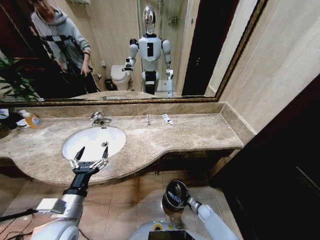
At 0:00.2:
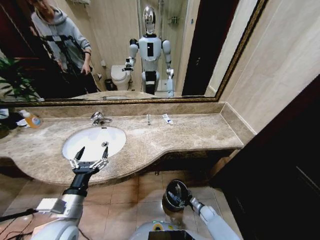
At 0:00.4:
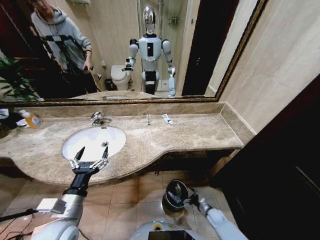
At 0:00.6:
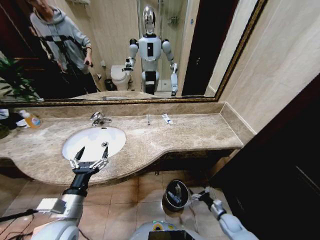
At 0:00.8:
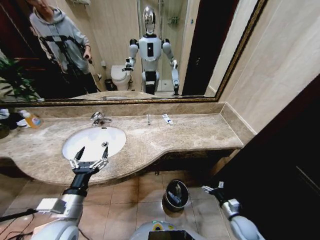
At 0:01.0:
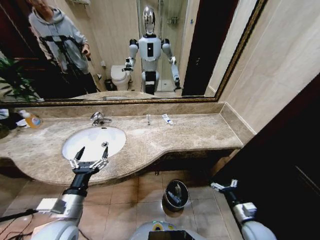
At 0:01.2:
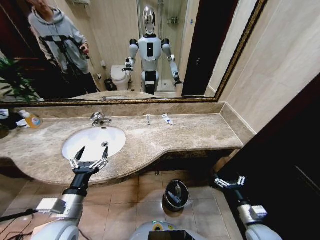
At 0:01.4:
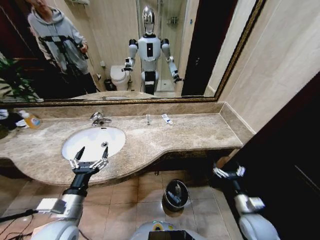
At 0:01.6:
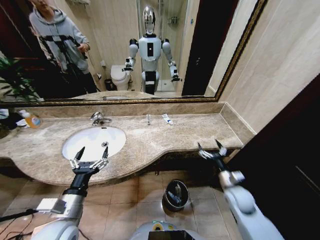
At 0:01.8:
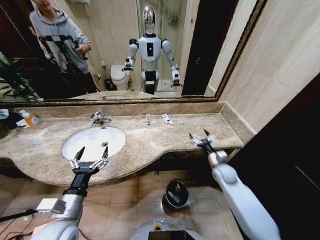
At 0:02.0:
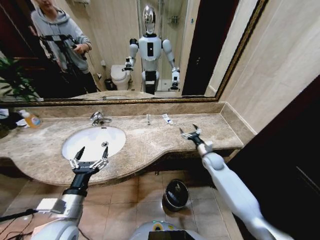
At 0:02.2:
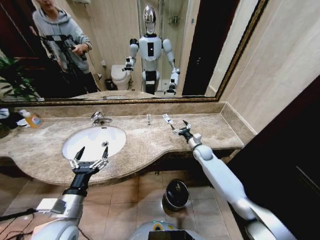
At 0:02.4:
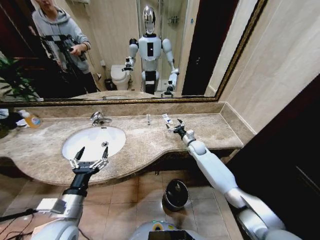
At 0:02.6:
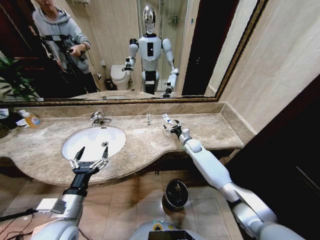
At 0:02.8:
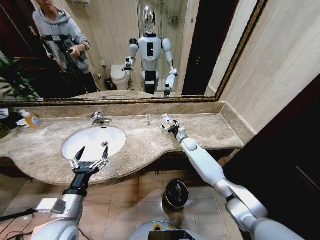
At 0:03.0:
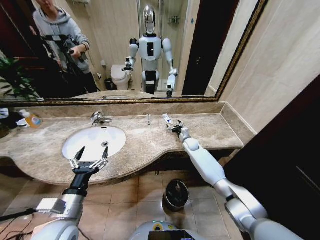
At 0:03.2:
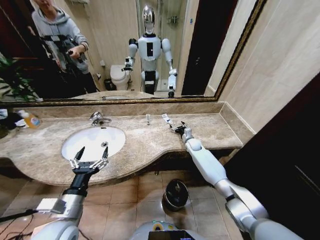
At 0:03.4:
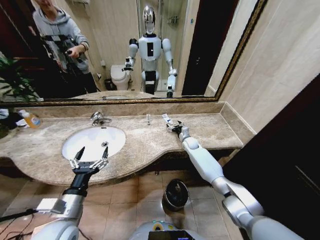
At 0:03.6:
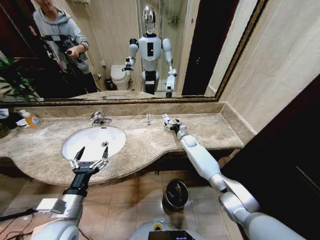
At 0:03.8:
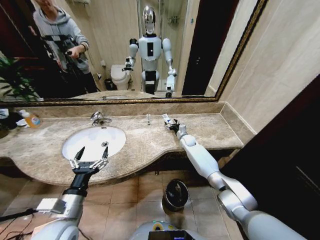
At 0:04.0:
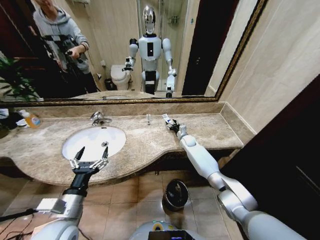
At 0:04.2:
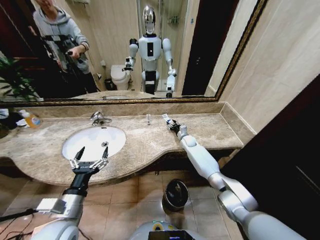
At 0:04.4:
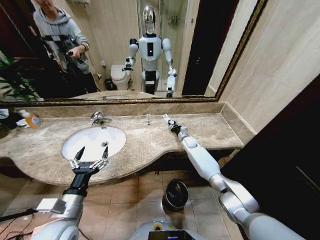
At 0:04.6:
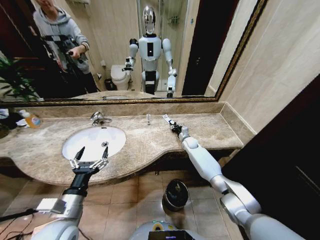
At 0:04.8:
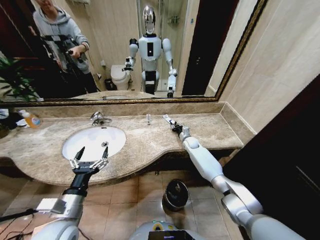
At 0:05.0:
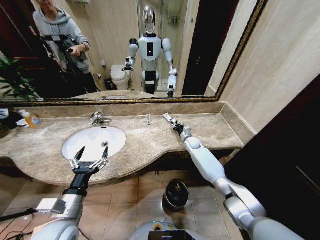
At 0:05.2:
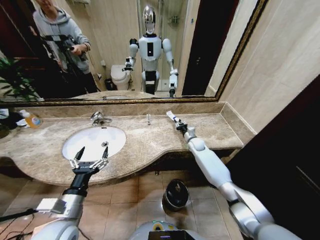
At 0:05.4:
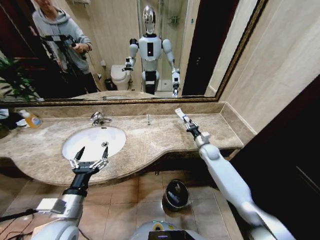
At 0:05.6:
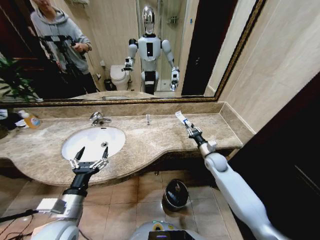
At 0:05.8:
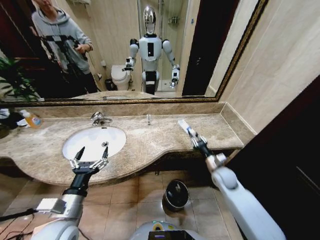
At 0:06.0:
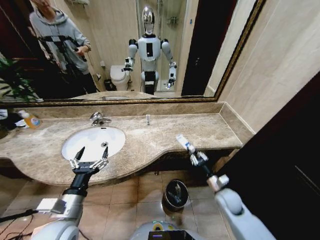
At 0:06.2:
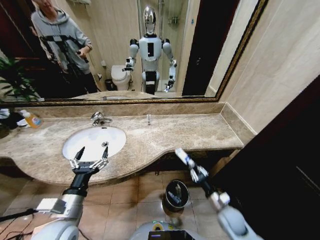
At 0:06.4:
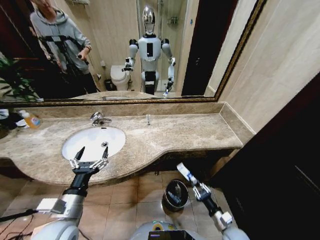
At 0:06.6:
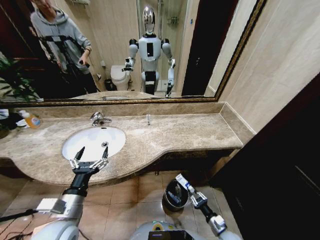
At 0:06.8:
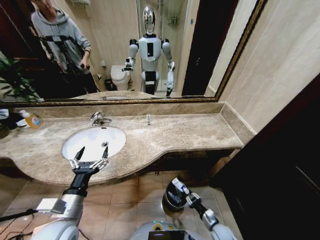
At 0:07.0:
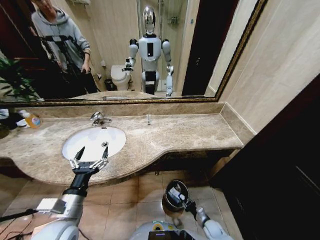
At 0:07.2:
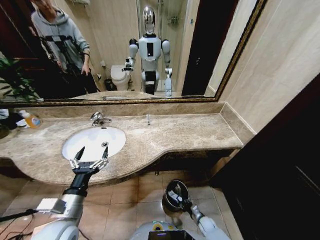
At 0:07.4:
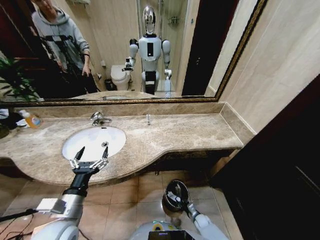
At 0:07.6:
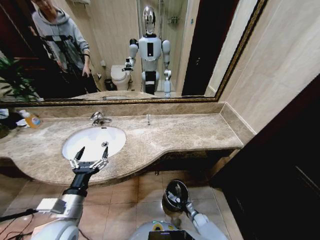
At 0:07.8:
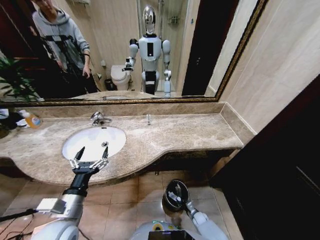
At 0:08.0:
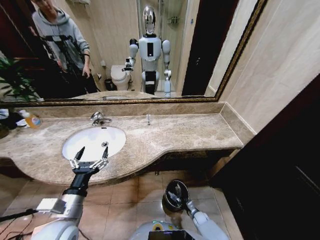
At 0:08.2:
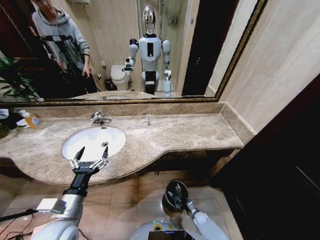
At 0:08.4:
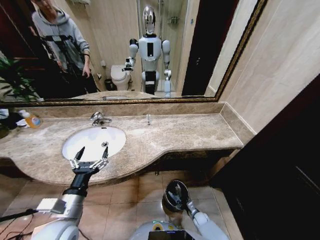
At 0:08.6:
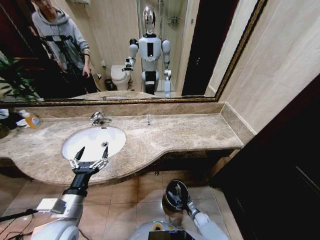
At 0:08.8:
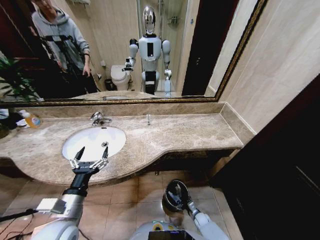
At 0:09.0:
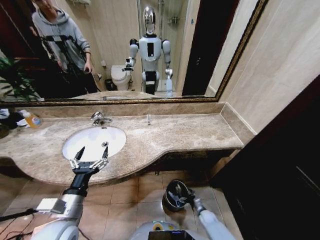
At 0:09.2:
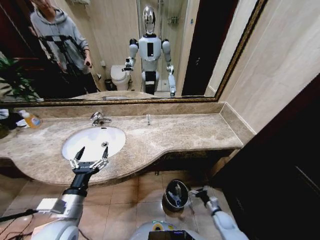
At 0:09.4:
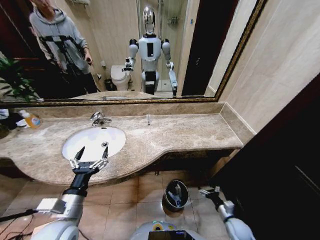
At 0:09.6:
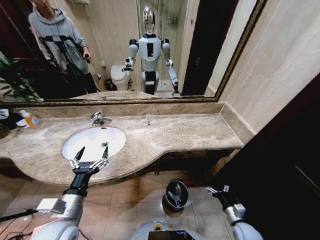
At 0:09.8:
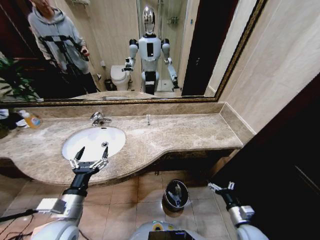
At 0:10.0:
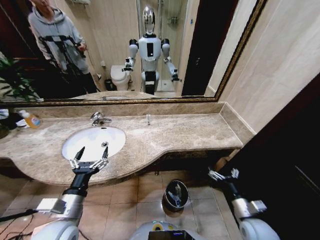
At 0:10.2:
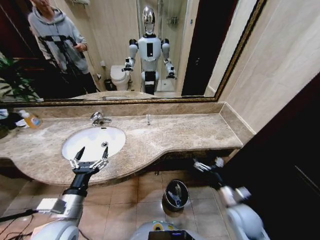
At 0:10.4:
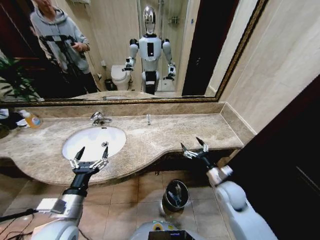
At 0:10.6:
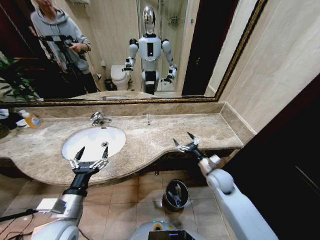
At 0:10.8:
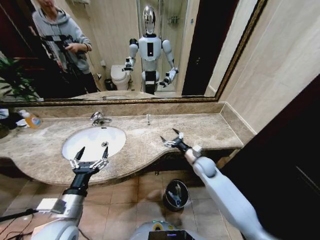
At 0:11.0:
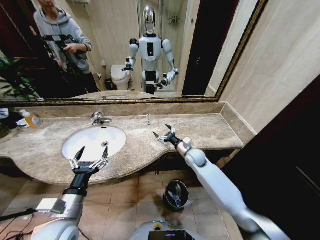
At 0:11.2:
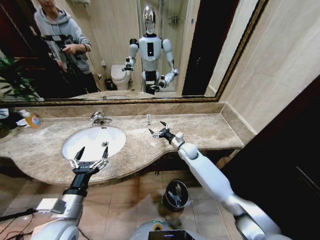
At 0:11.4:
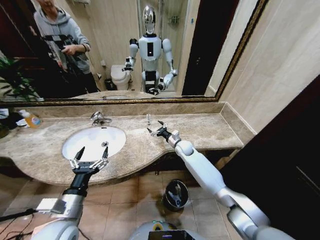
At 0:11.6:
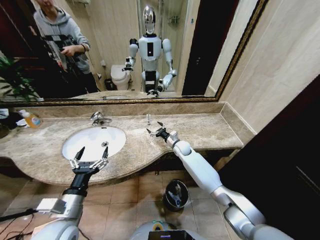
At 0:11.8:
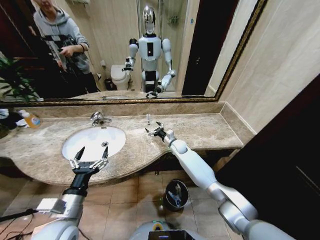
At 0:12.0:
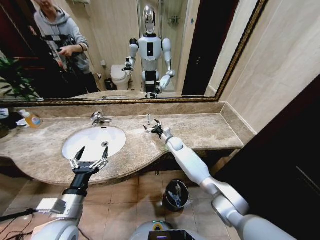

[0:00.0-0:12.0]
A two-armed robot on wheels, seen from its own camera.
Task of the whole recording: Pick up the trash from the sink and place it in the trash bin.
0:00.0 to 0:01.6: The right gripper moves upward, approximately 30 cm.
0:01.6 to 0:03.0: The right gripper heads forward, covering about 30 cm.
0:03.0 to 0:04.4: The right gripper closes.
0:04.4 to 0:06.0: The right gripper moves backward, approximately 30 cm.
0:06.0 to 0:07.6: The right gripper moves downward, about 30 cm.
0:07.6 to 0:09.0: The right gripper changes place by roughly 5 cm, and opens up.
0:09.0 to 0:10.4: The right gripper goes about 35 cm upward.
0:10.4 to 0:12.0: The right gripper is displaced forward and to the left by roughly 35 cm.

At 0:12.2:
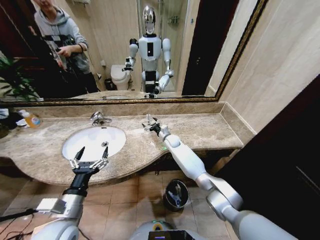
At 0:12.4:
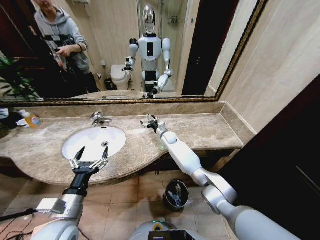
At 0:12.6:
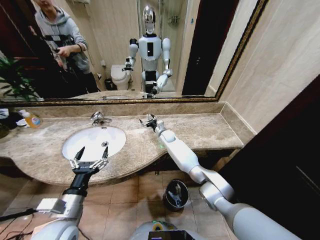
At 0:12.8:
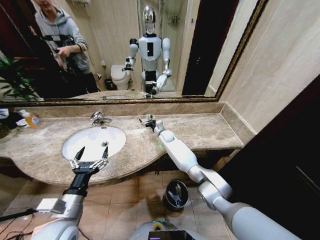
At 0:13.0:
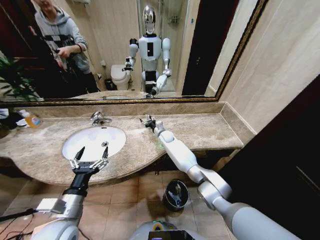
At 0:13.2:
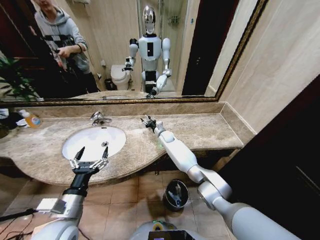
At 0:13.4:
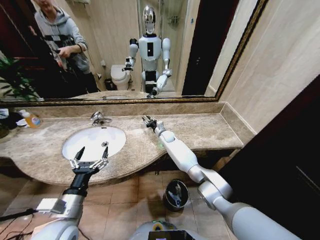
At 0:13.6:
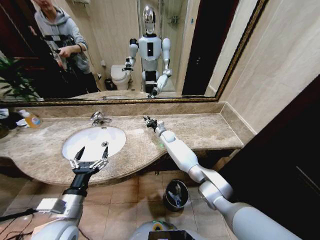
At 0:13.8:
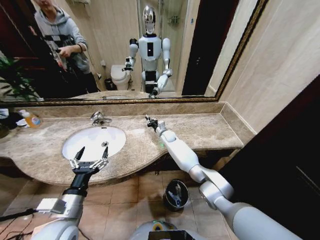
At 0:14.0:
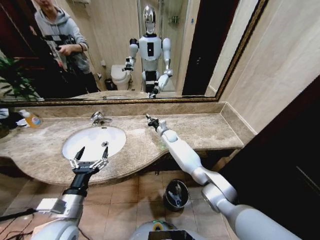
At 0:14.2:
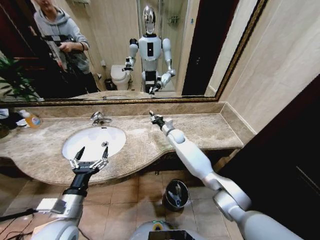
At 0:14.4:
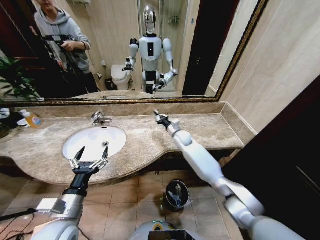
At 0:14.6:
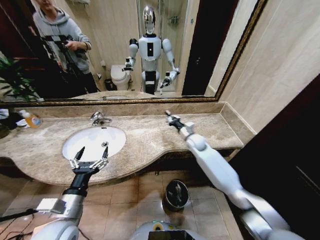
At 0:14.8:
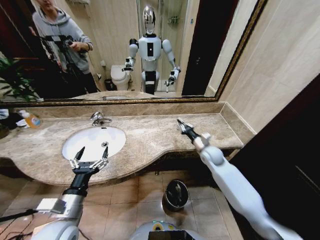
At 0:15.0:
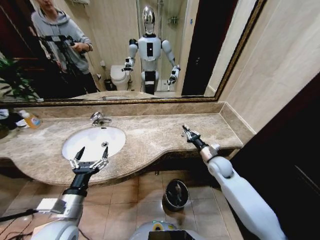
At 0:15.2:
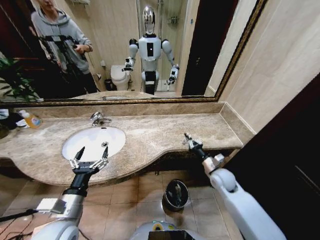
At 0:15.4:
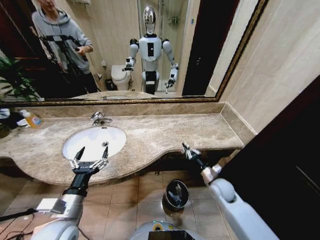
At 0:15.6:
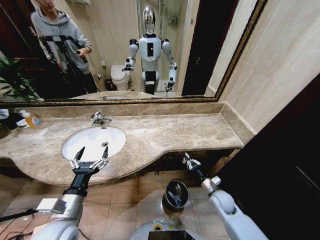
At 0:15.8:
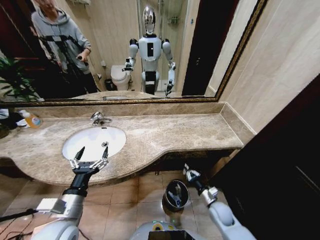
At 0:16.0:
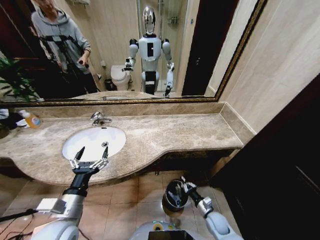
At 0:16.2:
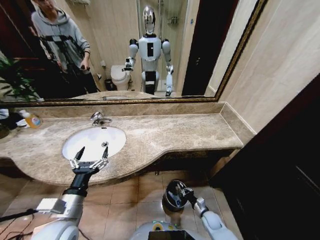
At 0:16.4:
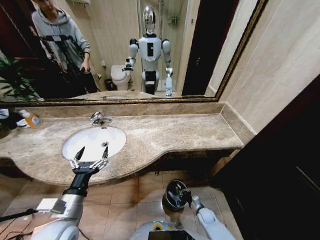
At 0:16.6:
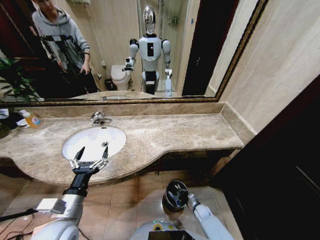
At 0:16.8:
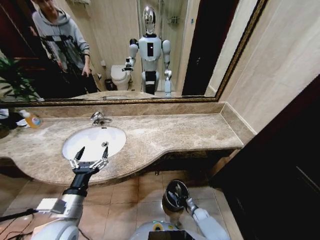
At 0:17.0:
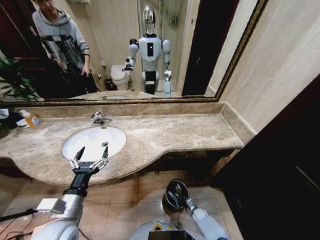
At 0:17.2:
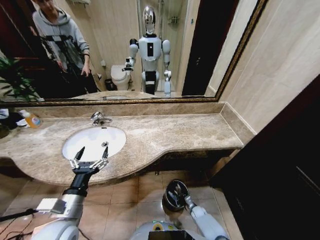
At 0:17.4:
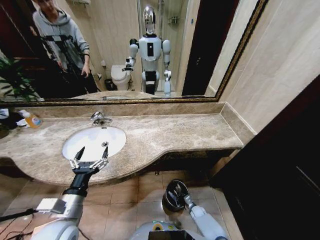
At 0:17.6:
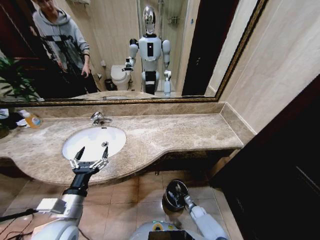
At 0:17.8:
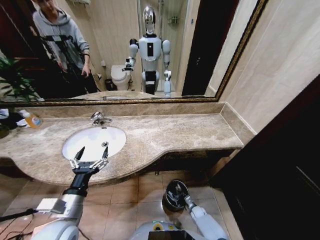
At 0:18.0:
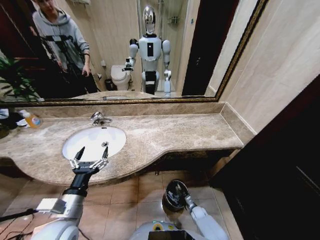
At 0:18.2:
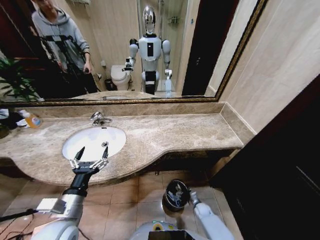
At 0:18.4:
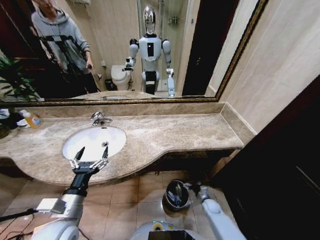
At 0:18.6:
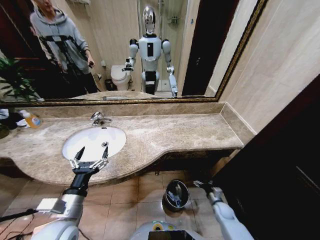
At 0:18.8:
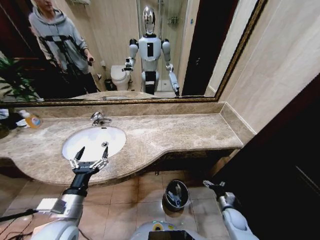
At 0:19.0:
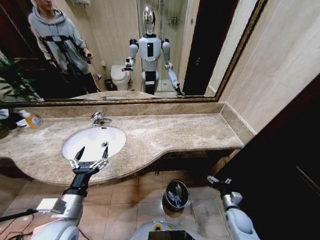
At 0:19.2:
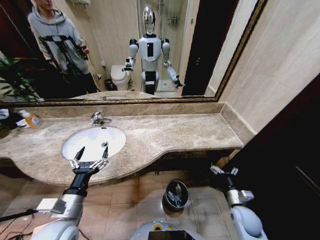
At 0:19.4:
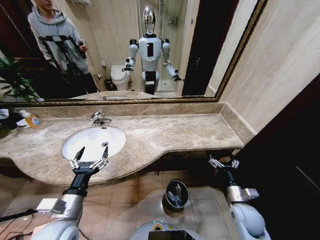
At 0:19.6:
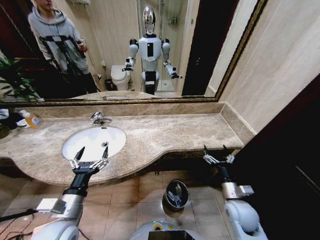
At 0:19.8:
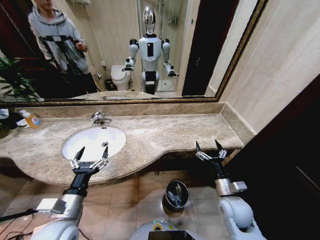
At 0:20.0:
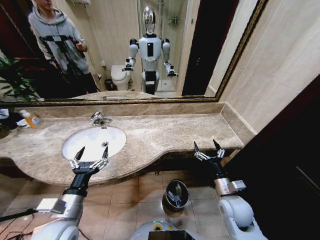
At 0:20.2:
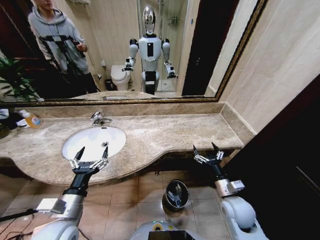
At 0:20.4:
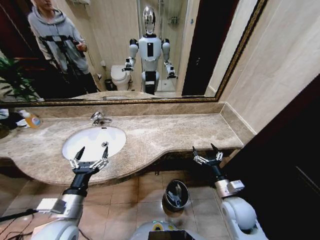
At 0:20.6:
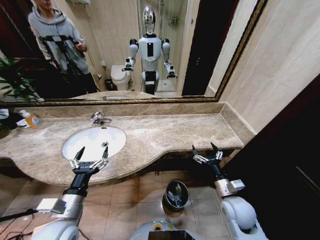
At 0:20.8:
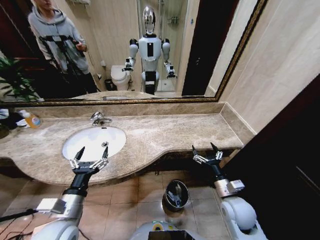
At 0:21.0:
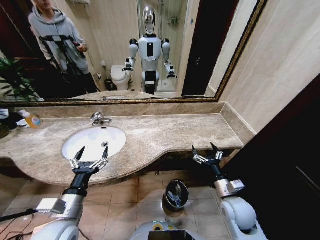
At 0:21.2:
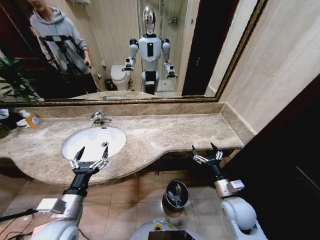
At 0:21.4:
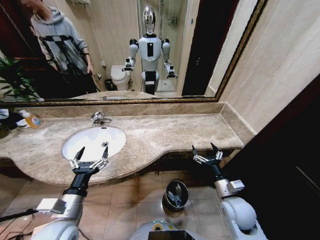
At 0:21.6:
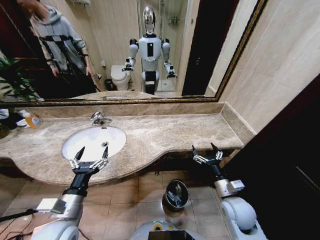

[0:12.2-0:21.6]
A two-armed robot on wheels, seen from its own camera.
Task of the whole recording: Pick up the trash from the sink and place it in the trash bin.
0:12.2 to 0:13.8: The right gripper closes its fingers.
0:13.8 to 0:15.4: The right gripper moves backward and to the right, approximately 35 cm.
0:15.4 to 0:17.0: The right gripper is displaced downward by some 30 cm.
0:17.0 to 0:18.4: The right gripper is displaced upward and to the right by about 10 cm, and opens its fingers.
0:18.4 to 0:20.0: The right gripper is displaced upward by some 30 cm.
0:20.0 to 0:21.6: There are only small adjustments of the grippers.
